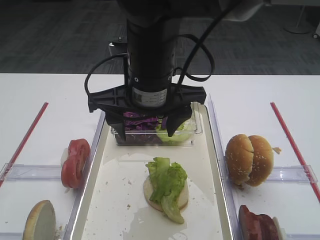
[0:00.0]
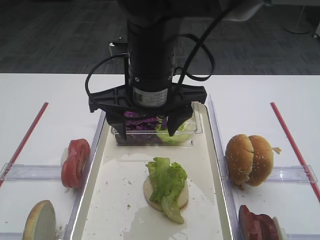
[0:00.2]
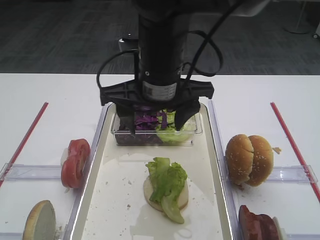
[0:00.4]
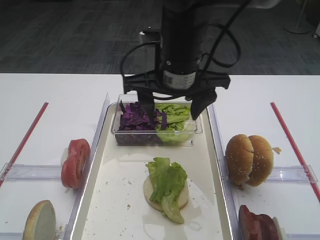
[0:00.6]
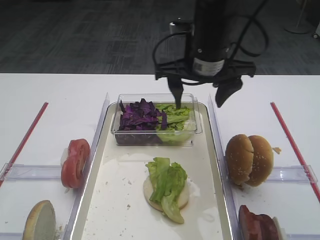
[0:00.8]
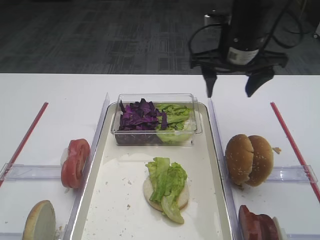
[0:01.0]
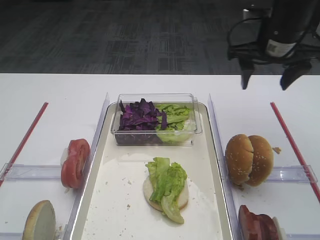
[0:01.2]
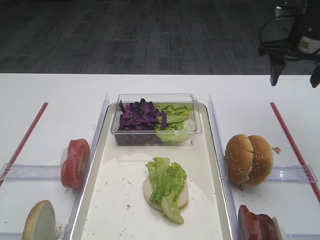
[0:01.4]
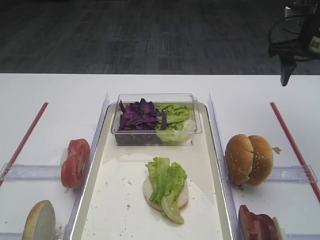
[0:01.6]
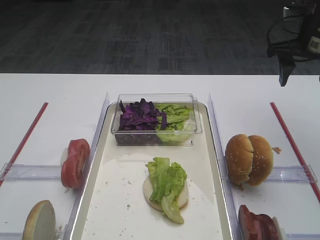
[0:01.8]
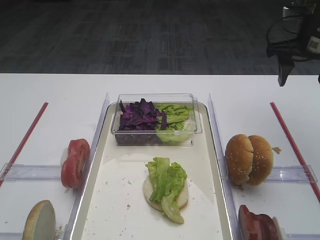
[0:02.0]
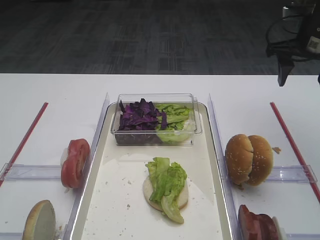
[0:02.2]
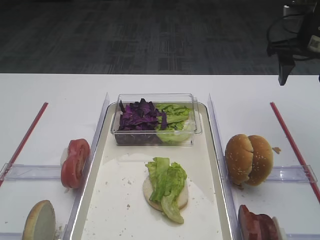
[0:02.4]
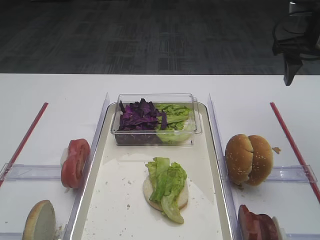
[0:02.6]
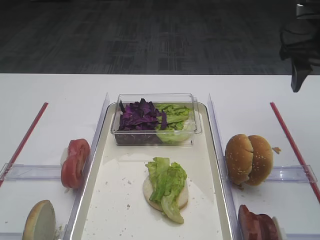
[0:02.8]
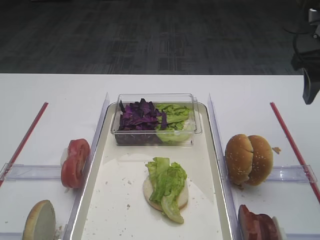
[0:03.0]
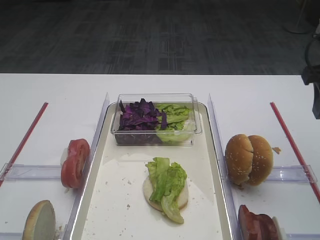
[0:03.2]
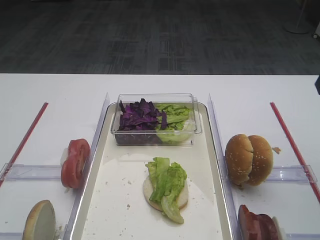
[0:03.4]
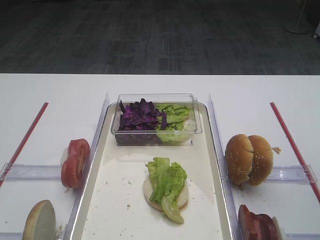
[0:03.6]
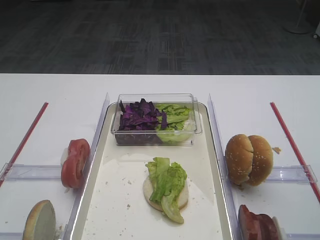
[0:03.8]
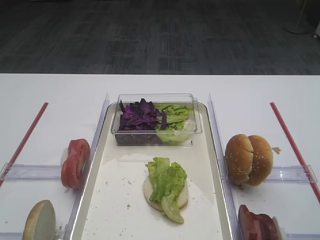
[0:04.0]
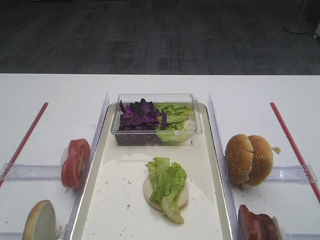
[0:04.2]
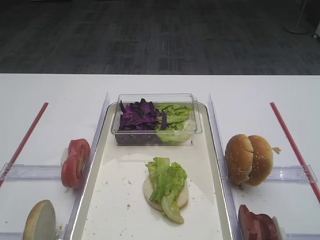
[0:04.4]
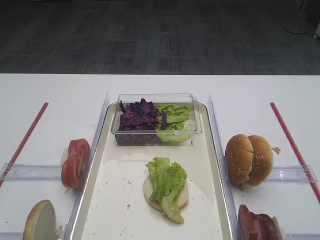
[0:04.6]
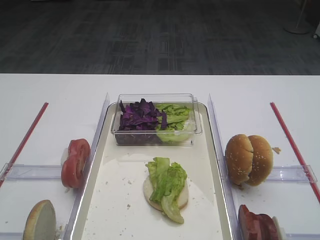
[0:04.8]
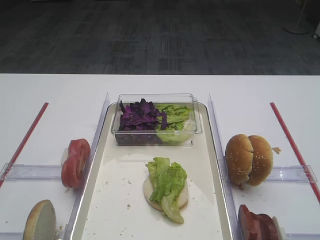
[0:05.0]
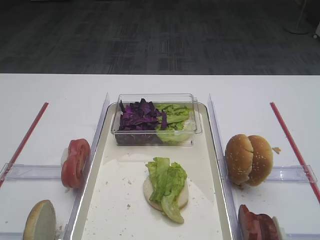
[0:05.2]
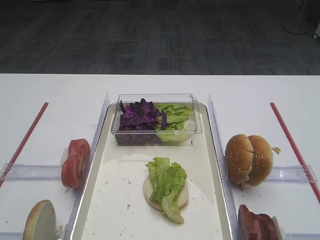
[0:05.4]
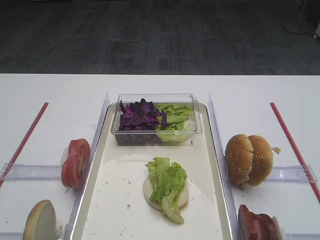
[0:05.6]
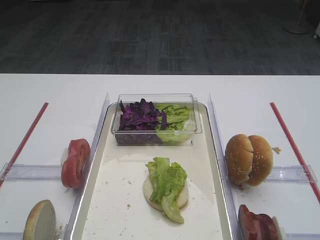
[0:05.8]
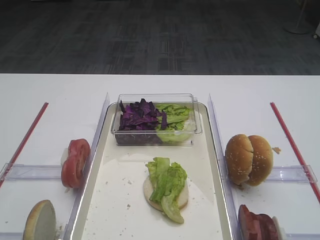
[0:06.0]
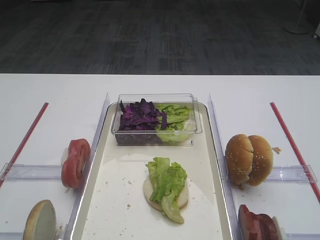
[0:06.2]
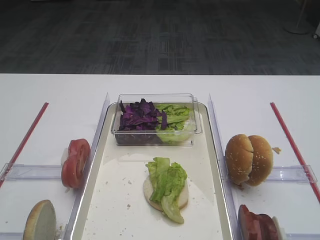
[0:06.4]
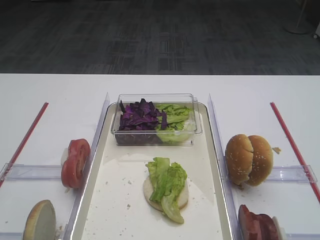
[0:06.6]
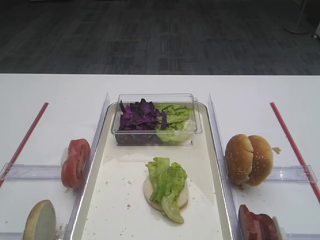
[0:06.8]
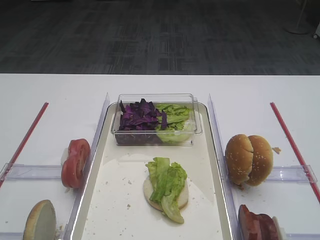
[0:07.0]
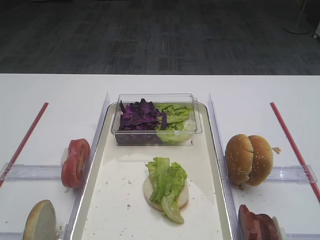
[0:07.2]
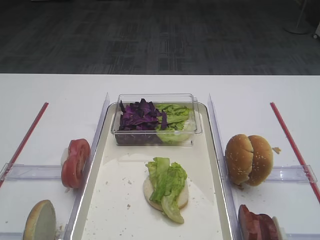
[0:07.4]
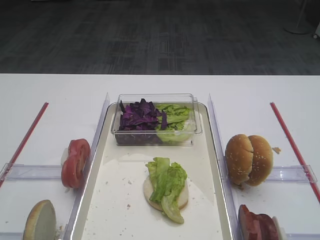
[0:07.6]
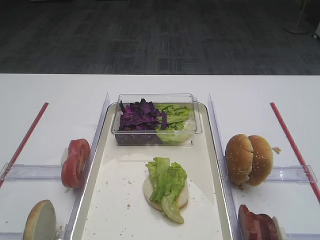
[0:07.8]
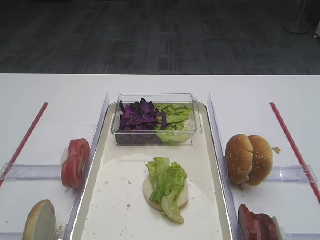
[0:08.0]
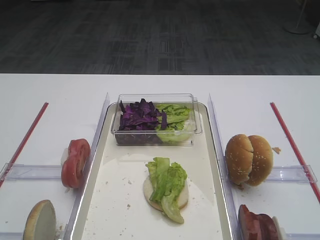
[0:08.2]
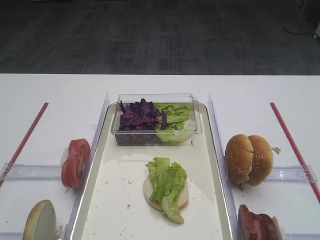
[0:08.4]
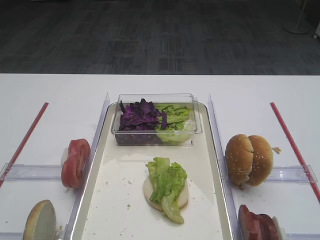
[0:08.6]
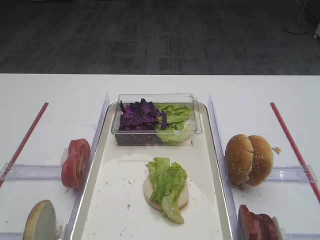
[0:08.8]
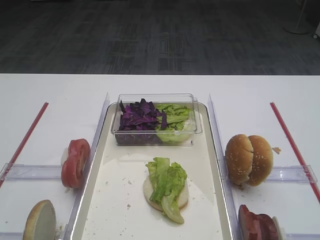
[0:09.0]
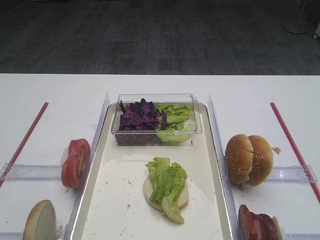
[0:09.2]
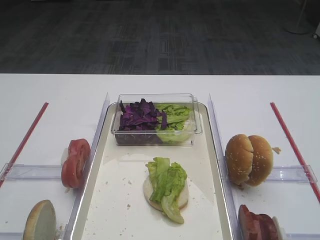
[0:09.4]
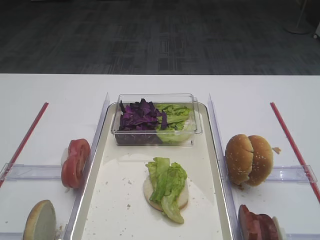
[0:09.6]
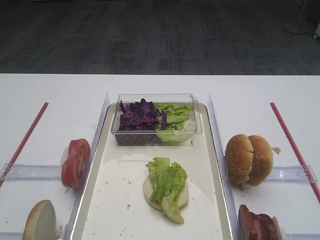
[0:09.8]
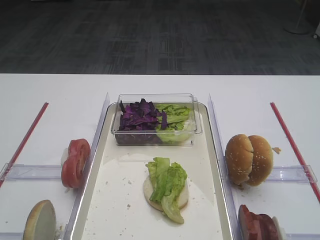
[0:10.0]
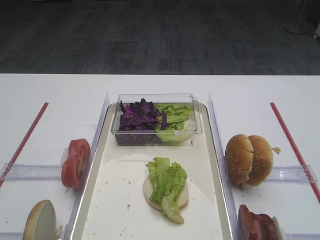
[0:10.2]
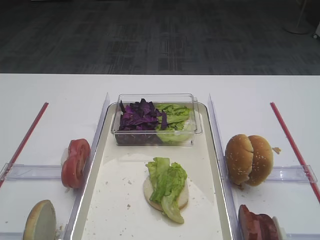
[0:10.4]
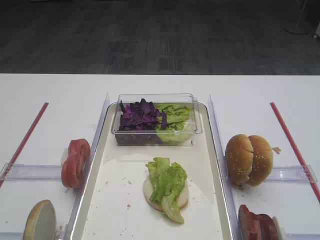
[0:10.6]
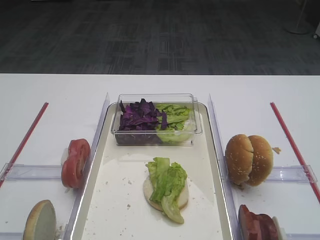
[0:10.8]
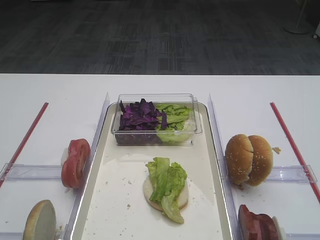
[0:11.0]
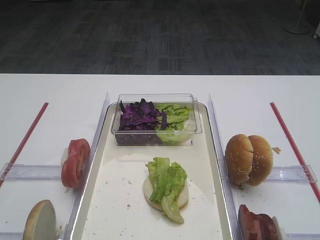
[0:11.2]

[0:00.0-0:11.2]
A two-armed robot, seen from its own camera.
0:00.0 to 0:01.6: The right gripper goes about 30 cm to the right and forward.
0:01.6 to 0:03.2: The right gripper goes approximately 10 cm backward.
0:03.2 to 0:04.8: The right gripper heads backward, covering some 20 cm.
0:06.4 to 0:11.2: Both grippers stay about where they are.

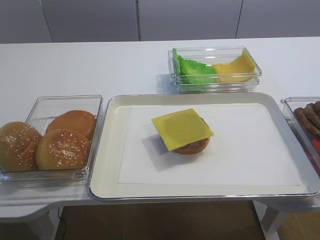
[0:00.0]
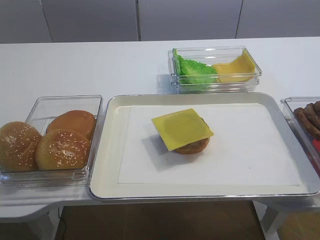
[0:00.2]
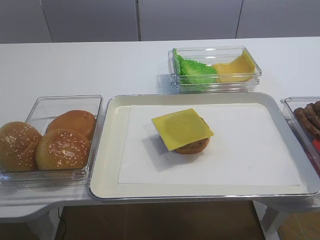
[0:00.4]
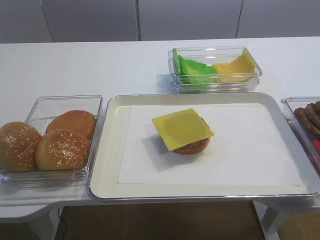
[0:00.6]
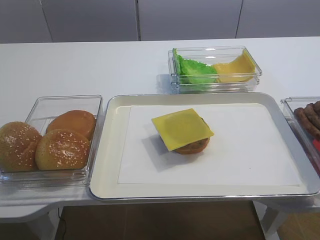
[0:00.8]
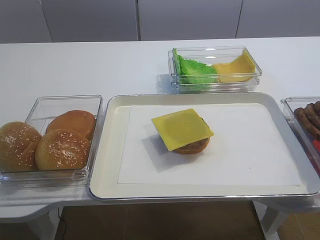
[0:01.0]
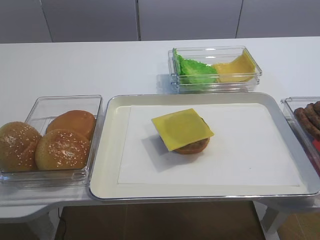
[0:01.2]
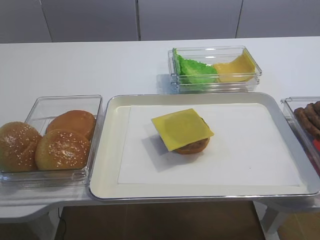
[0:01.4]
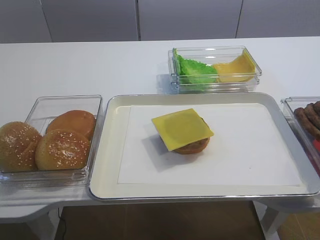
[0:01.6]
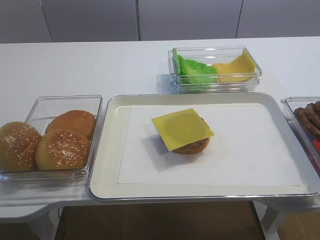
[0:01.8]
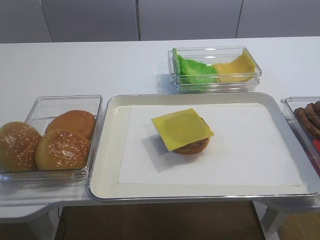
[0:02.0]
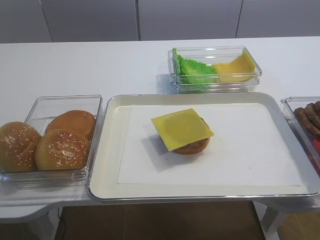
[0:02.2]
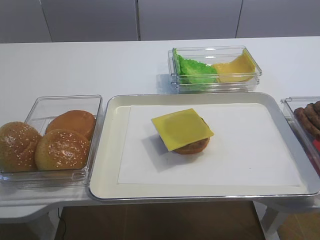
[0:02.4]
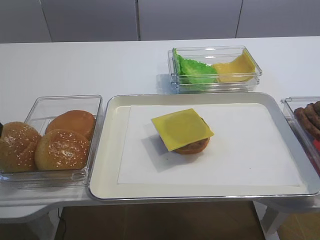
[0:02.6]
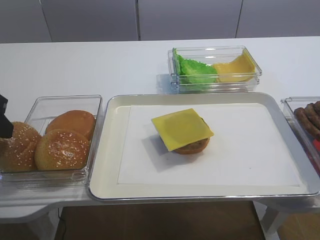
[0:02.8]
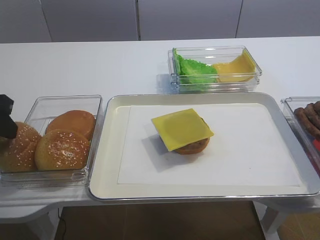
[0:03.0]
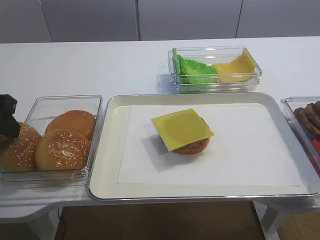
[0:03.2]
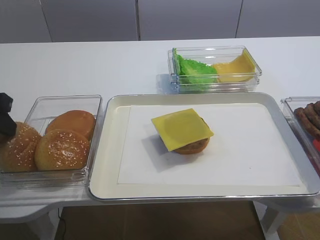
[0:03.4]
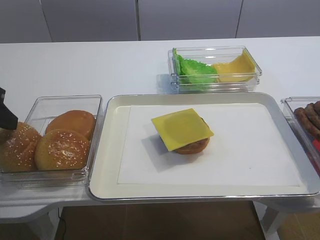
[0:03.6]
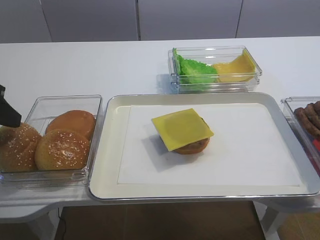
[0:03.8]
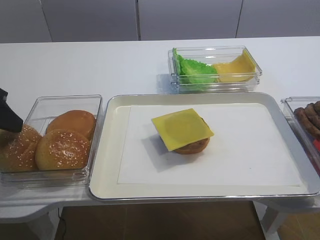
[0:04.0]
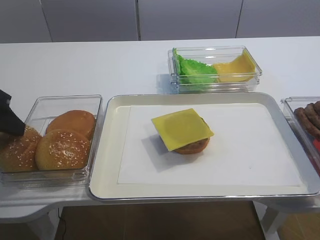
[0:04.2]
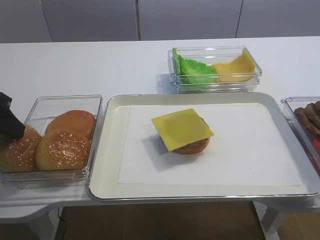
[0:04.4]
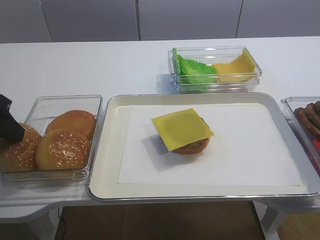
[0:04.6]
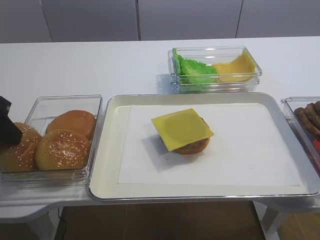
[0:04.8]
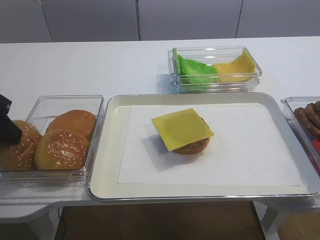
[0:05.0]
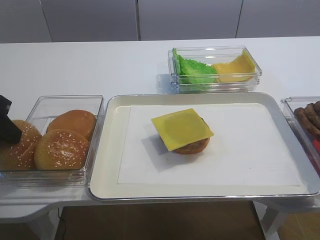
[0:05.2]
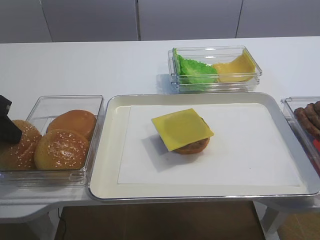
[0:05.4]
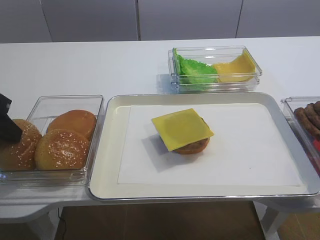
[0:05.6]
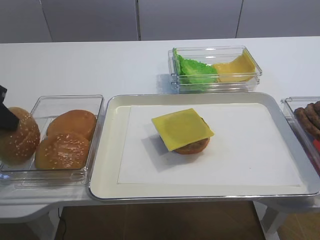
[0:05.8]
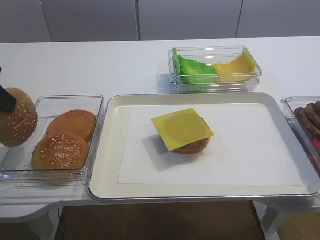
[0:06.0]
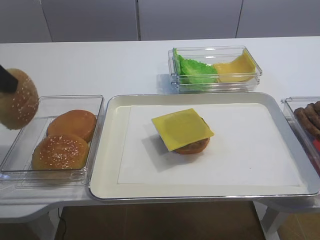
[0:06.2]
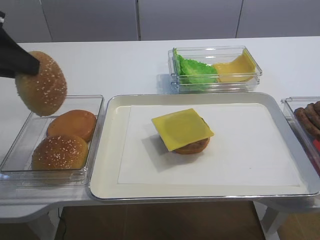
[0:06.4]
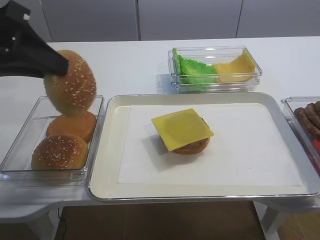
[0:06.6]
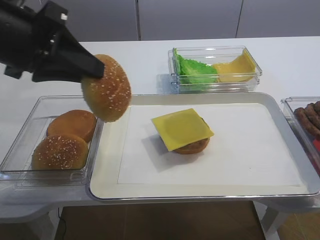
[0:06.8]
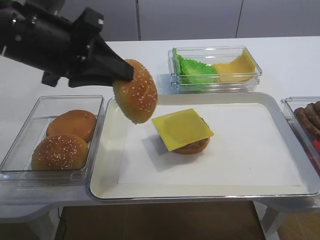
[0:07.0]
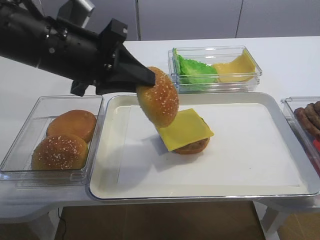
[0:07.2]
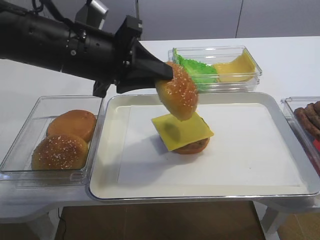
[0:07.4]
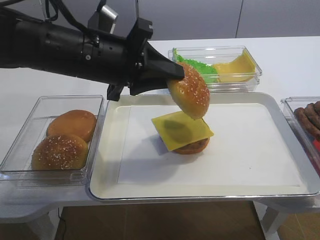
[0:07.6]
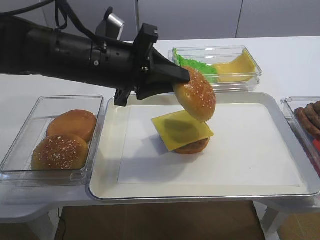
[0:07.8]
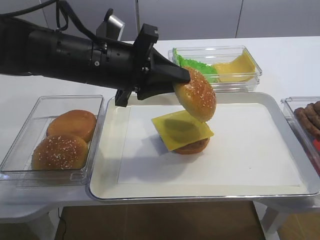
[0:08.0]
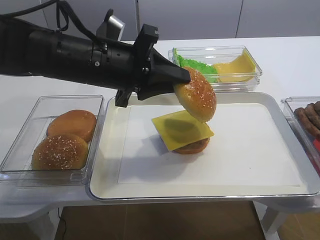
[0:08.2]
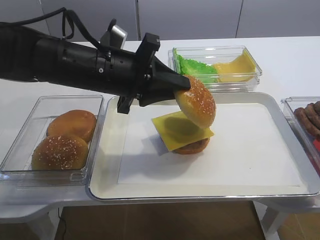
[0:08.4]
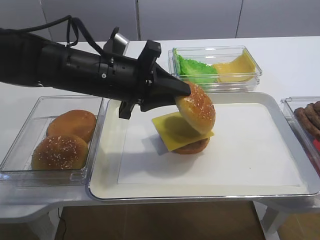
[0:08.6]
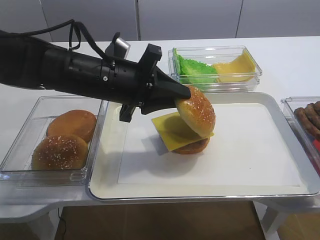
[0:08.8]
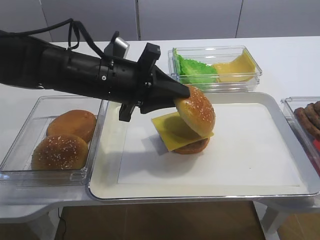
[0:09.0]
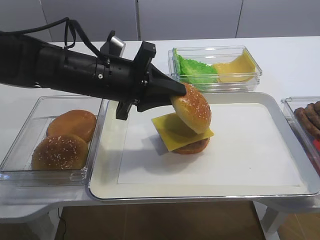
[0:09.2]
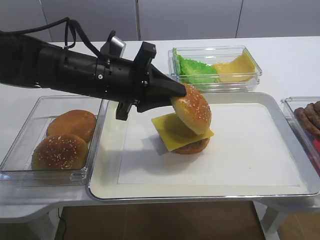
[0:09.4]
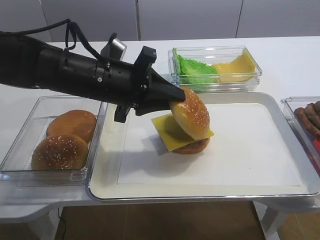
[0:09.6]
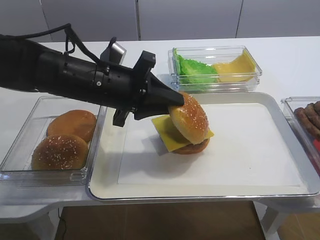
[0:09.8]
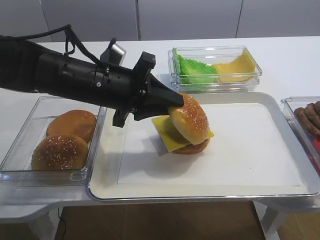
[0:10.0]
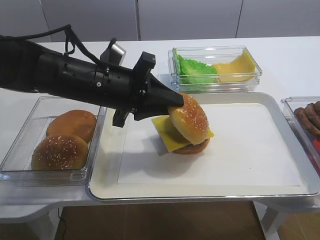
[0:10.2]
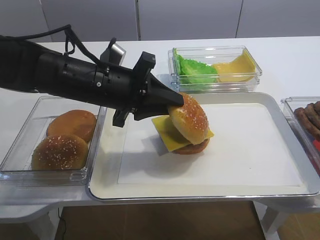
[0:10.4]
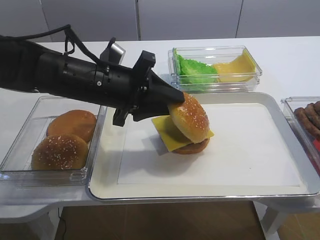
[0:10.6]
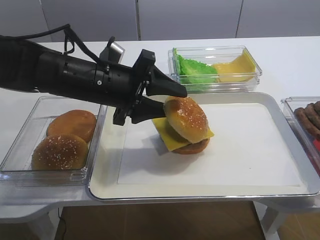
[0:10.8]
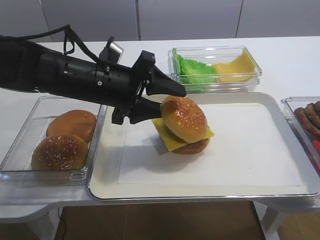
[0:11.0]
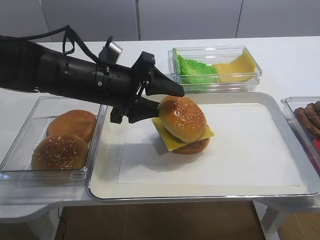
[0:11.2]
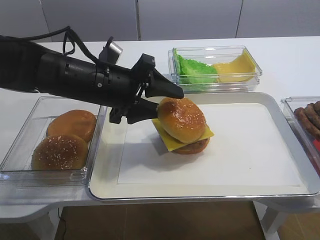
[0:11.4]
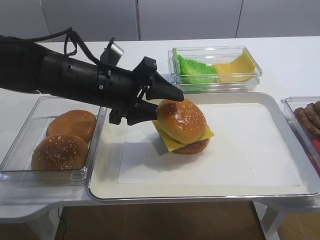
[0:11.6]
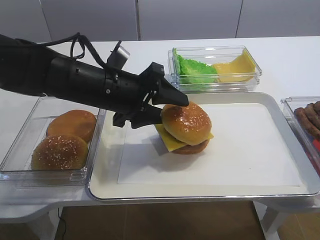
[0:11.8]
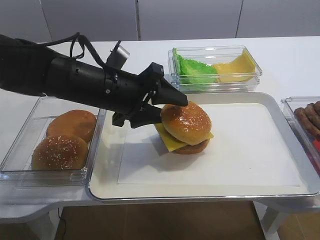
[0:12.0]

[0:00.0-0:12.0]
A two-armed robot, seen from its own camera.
Step, 0:00.0 to 0:05.8: Pick up the hamburger lid with the left gripper.
0:01.6 to 0:03.0: The left gripper goes some 20 cm forward.
0:04.4 to 0:06.0: The left gripper closes.
0:06.0 to 0:07.6: The left gripper moves to the right, approximately 20 cm.
0:07.6 to 0:09.0: The grippers move only a little.
0:09.0 to 0:10.4: Both grippers stay put.
0:10.4 to 0:12.0: The left gripper opens up.
